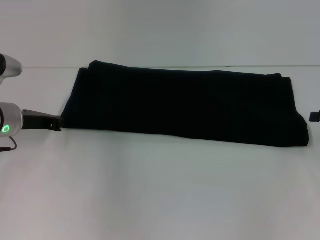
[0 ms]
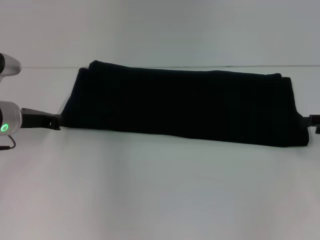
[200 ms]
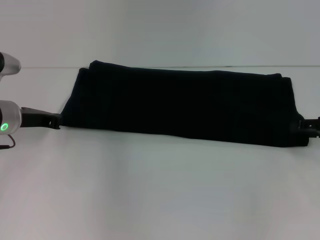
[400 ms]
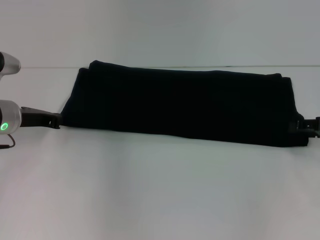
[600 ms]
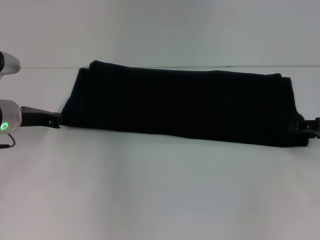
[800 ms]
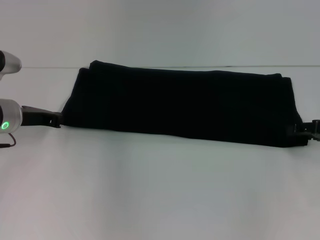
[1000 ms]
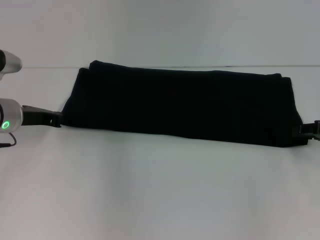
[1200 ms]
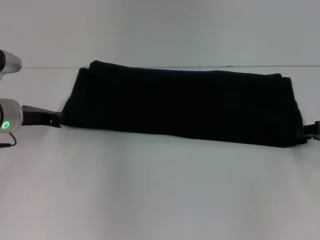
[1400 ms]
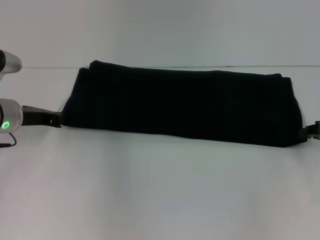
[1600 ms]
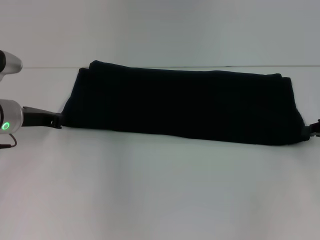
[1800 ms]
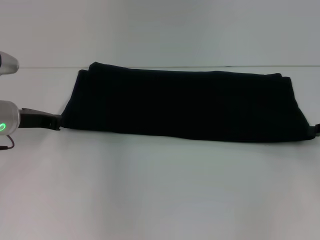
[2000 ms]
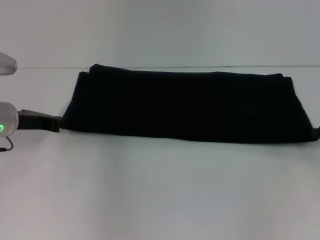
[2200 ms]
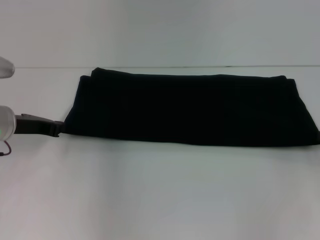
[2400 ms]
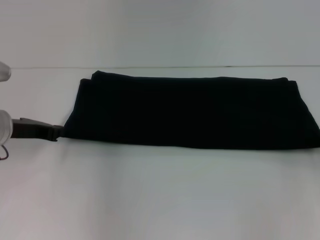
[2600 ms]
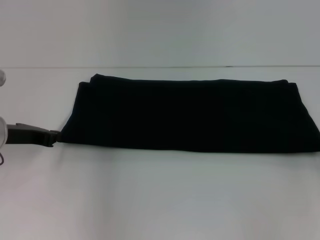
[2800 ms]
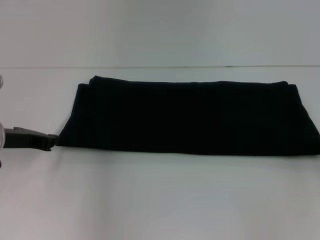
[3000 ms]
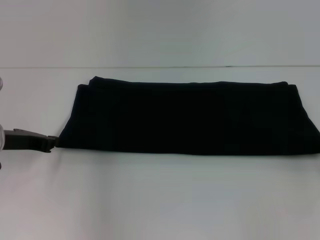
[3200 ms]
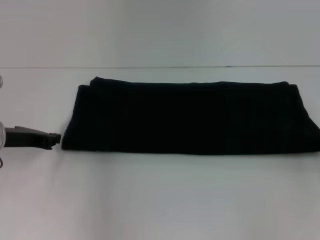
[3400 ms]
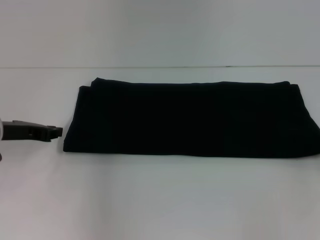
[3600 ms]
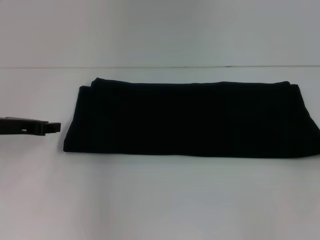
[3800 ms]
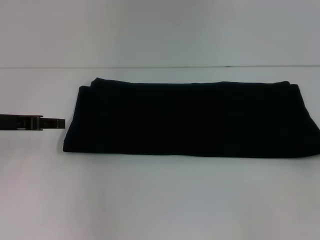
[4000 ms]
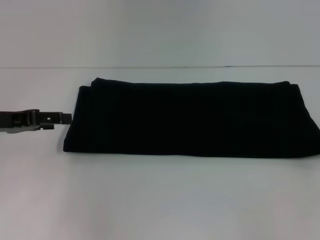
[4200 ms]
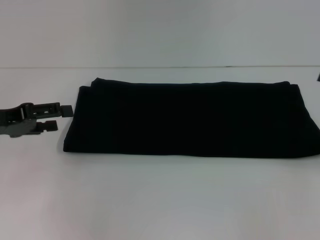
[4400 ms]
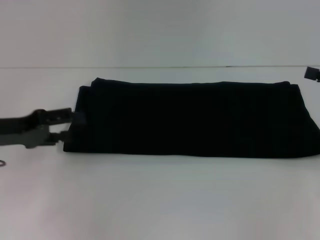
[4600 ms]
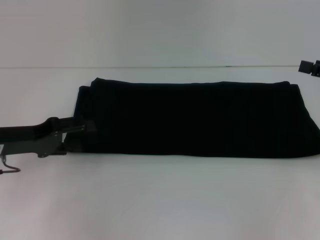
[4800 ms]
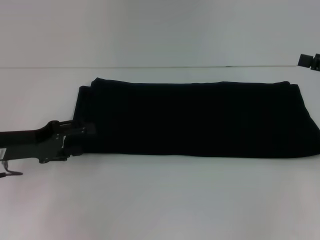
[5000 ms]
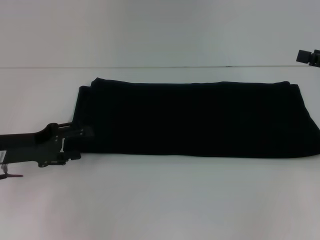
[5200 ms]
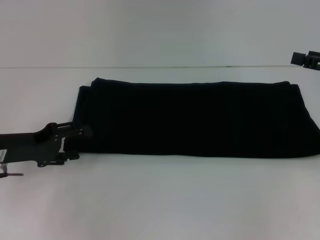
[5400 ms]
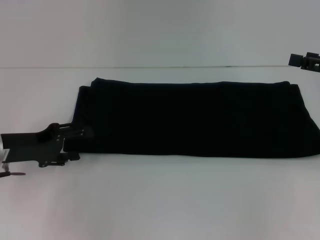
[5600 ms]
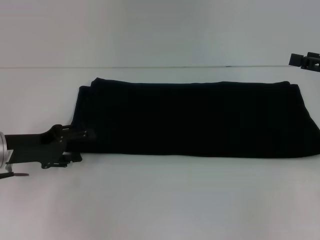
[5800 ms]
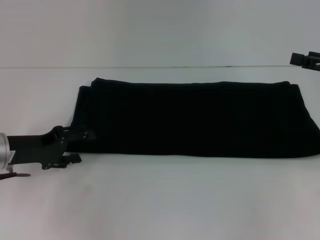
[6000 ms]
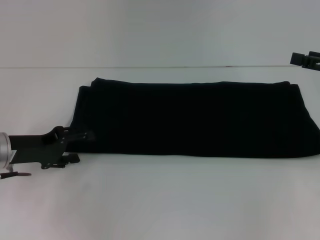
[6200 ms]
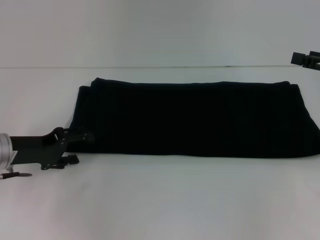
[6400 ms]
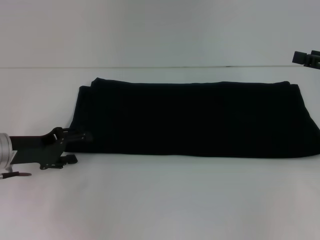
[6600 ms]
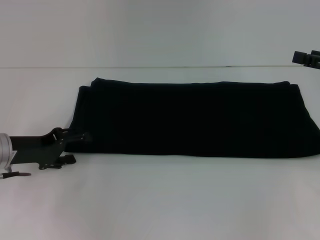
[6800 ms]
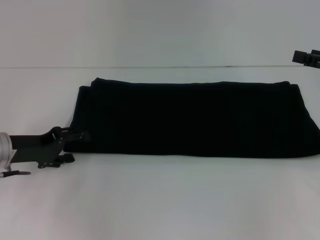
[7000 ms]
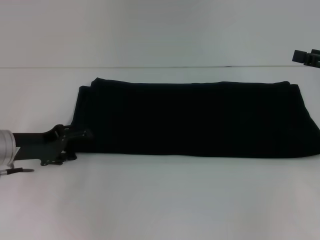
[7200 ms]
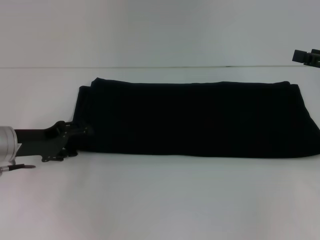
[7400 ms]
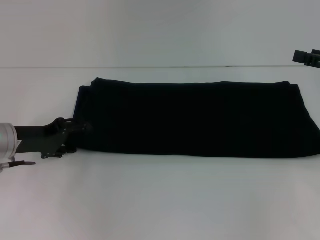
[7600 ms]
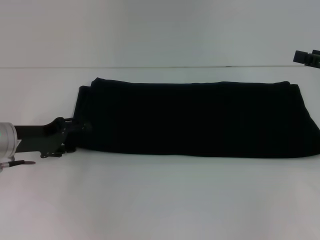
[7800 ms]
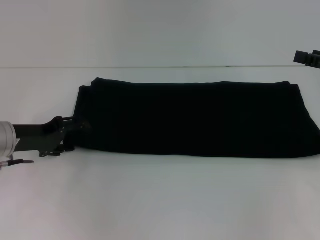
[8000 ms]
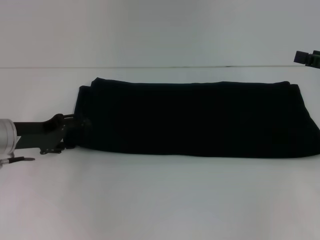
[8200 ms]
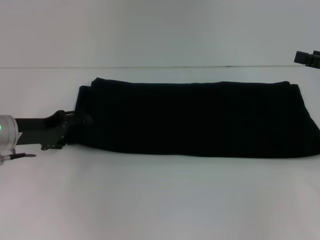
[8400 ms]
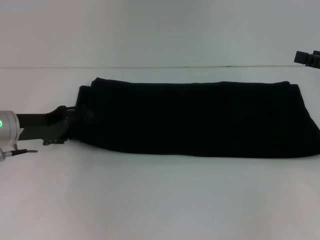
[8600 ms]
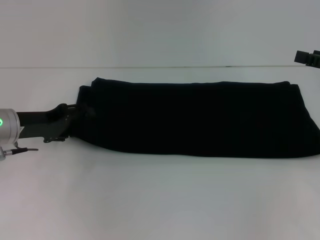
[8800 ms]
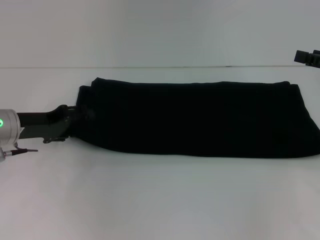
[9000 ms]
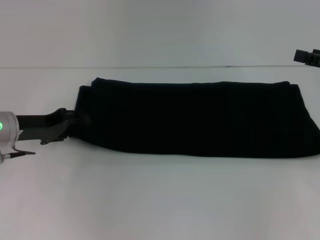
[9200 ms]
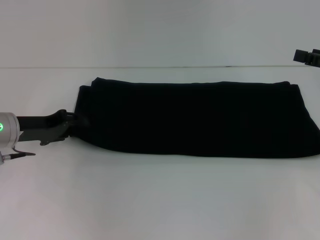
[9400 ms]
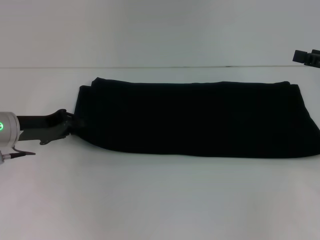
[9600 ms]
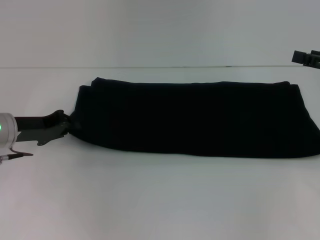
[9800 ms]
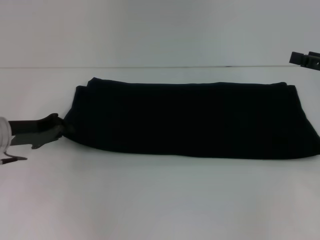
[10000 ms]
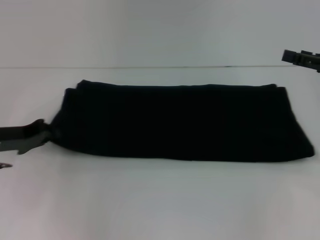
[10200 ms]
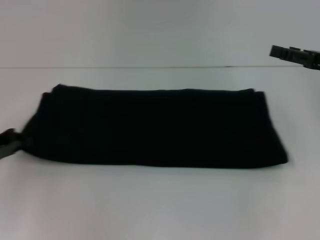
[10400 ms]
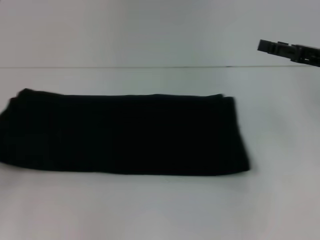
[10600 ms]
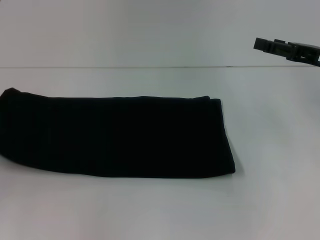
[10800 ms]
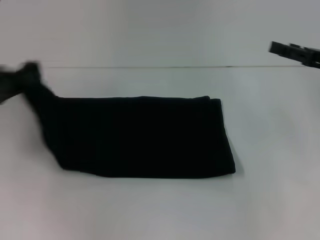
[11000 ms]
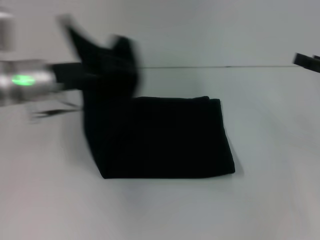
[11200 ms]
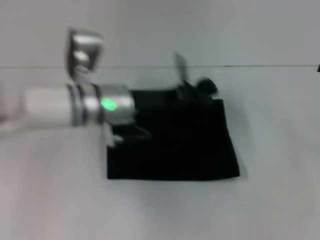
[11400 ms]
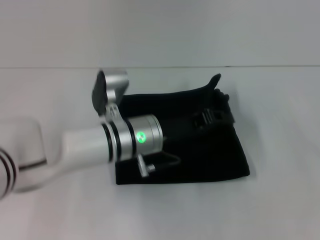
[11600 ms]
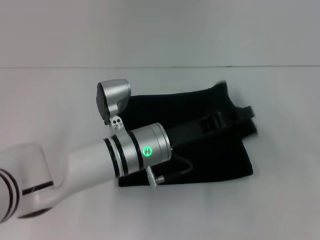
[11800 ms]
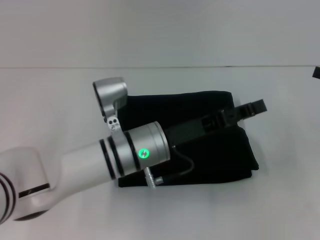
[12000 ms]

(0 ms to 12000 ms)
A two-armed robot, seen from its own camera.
Step, 0 ms - 11800 ms: Fold the clothes with your left hand.
0 ms - 1600 ms: The right gripper closes.
1600 ms - 3000 ms: The right gripper shifts by some 5 cm.
3000 ms - 4400 ms: The right gripper shifts roughly 5 cm upward, and opens its fingers; the left gripper moves roughly 5 cm, and opens.
4400 ms - 6000 ms: The right gripper shifts by some 5 cm. Meanwhile the left gripper travels downward by roughly 5 cm.
6000 ms - 9000 ms: The grippers stay close to where they were, moving slightly.
9000 ms - 10400 ms: The left gripper goes roughly 10 cm to the left and backward, and closes up.
10400 ms - 12000 ms: The right gripper shifts approximately 5 cm to the right. The left gripper shifts about 30 cm to the right.

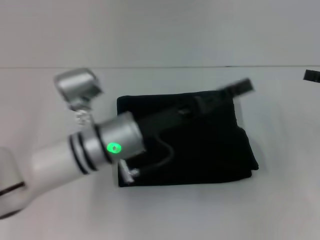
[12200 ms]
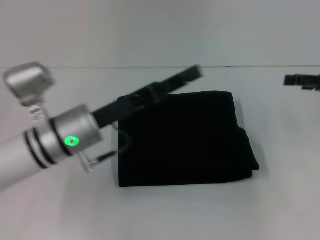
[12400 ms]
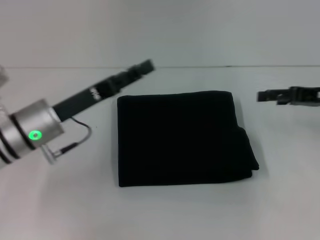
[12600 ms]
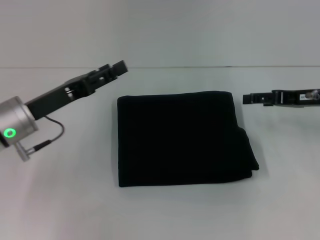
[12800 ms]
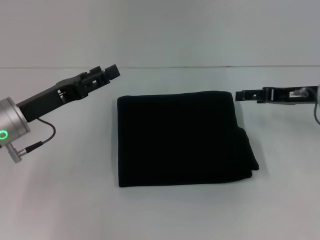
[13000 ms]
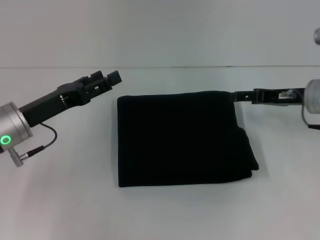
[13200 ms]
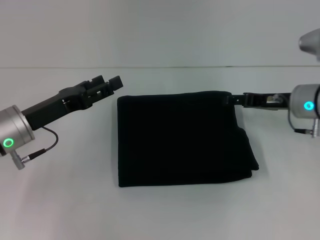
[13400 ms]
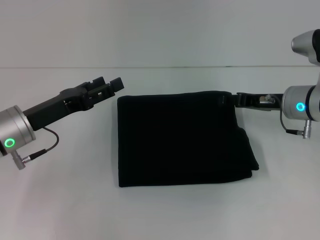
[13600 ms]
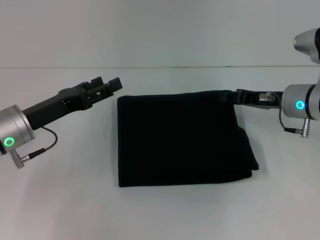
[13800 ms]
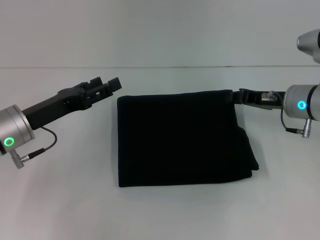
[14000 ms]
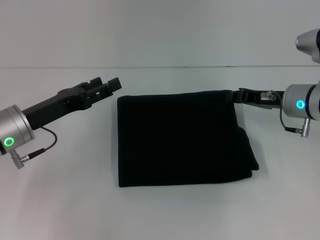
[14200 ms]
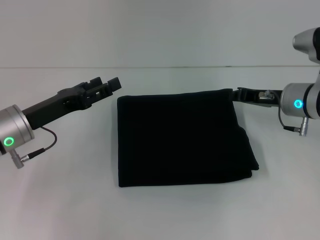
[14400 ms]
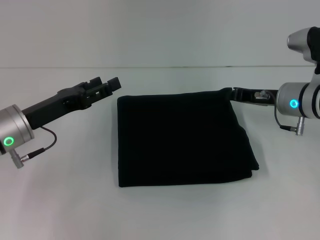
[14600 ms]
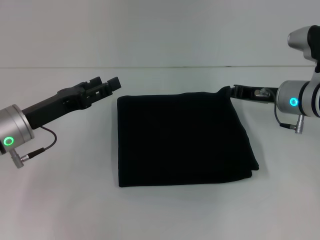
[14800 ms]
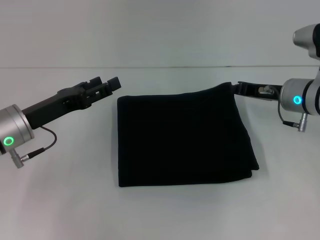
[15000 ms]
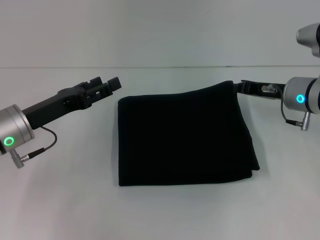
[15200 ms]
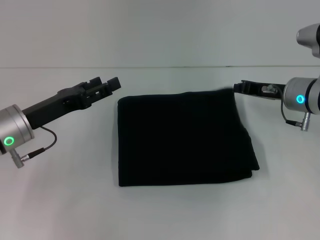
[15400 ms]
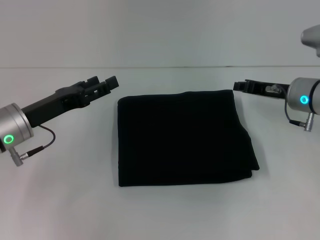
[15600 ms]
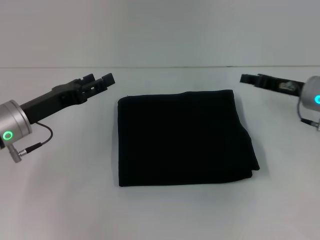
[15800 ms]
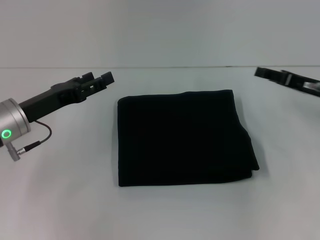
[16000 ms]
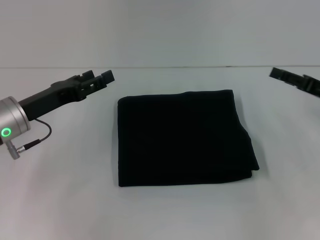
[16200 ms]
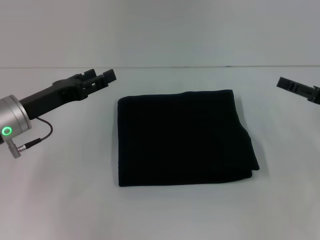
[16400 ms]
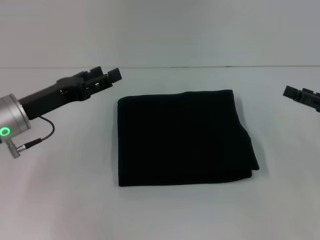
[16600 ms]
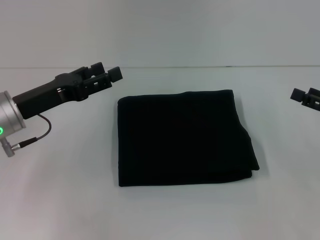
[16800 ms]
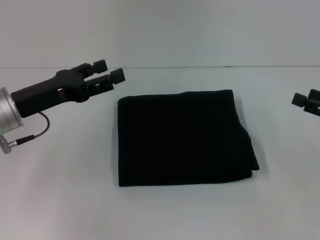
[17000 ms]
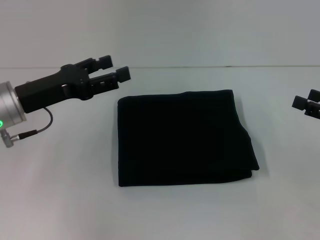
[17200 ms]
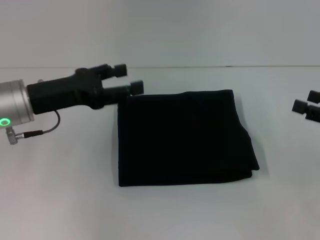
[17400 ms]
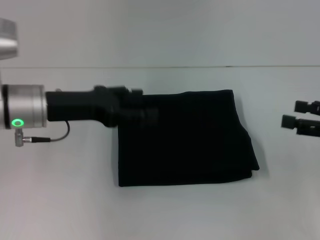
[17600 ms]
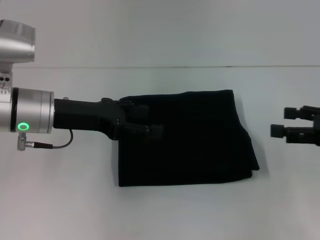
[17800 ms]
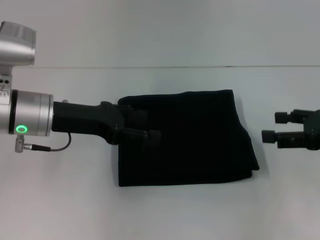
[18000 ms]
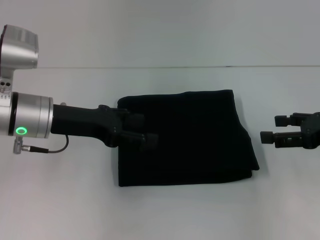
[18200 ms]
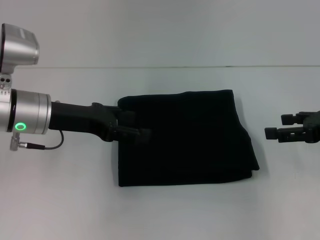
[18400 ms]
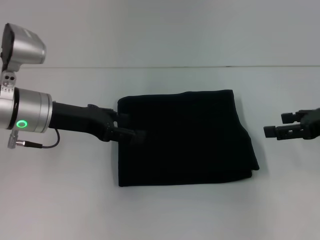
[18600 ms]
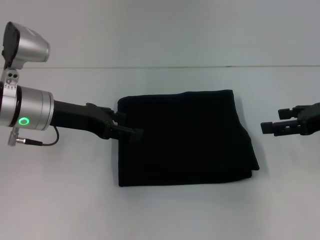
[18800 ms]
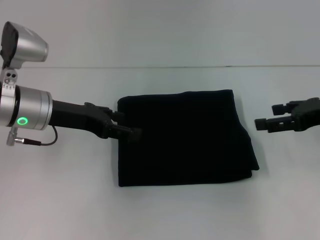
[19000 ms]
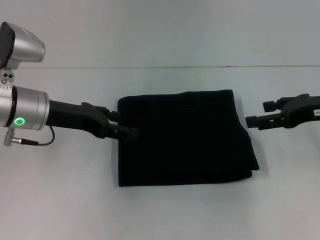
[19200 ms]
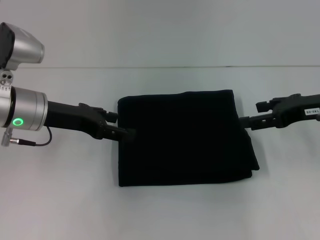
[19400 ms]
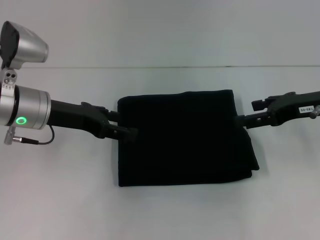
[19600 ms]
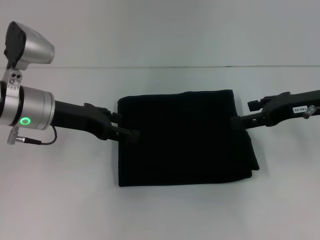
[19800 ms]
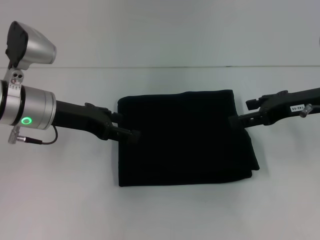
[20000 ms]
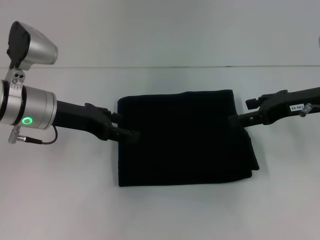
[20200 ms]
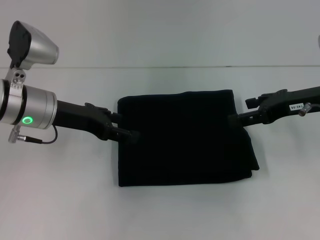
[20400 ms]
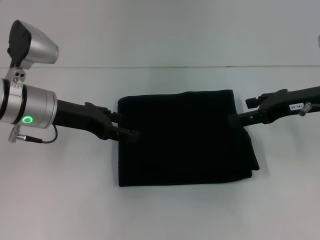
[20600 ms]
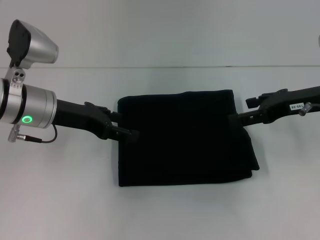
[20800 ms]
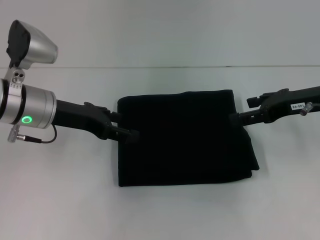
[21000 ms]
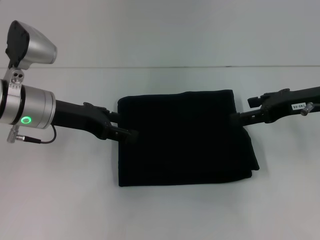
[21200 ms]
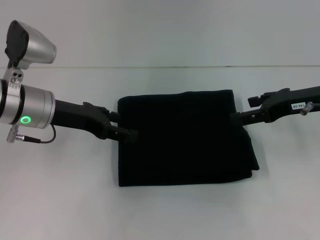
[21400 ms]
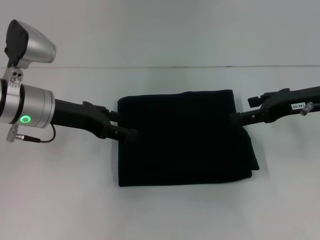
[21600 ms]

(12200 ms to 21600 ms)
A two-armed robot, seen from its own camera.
12200 ms - 13800 ms: The two grippers go some 15 cm to the left. The left gripper opens its fingers.
13800 ms - 15400 ms: The right gripper closes up.
15400 ms - 17000 ms: The right gripper heads to the right and backward, covering some 15 cm, and opens.
17000 ms - 18400 ms: The right gripper moves about 5 cm.
18400 ms - 20000 ms: The right gripper goes some 5 cm to the left.
20000 ms - 21600 ms: Neither gripper changes place.
